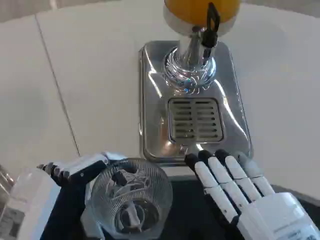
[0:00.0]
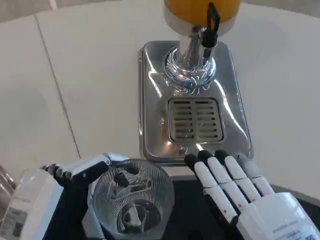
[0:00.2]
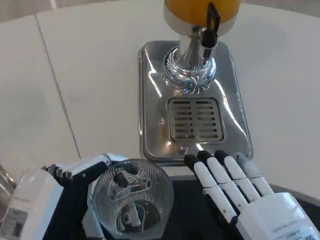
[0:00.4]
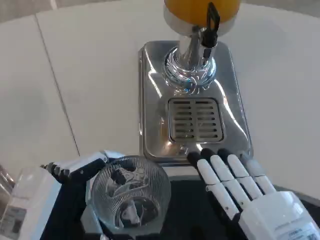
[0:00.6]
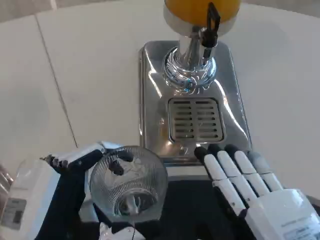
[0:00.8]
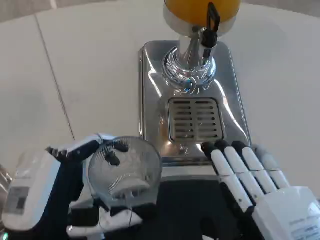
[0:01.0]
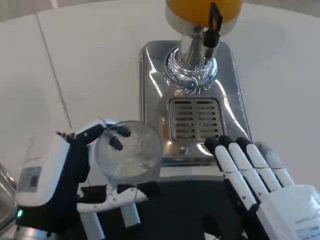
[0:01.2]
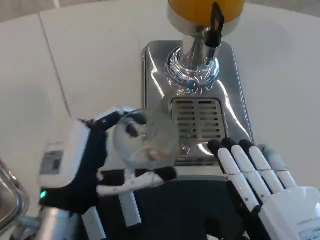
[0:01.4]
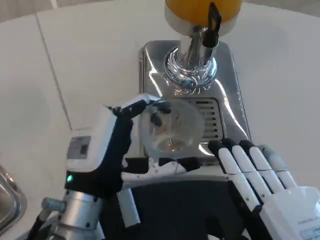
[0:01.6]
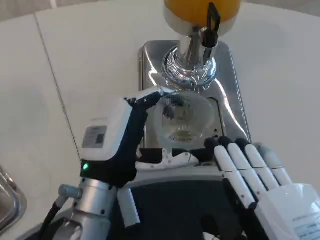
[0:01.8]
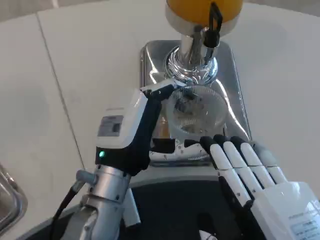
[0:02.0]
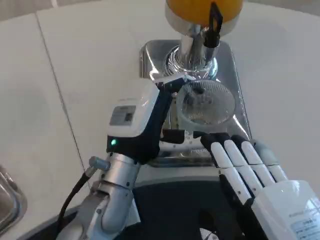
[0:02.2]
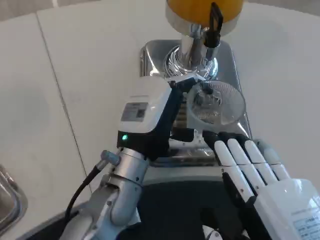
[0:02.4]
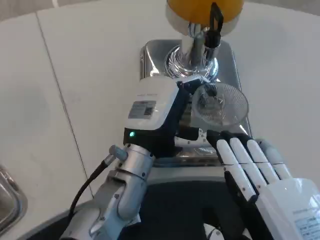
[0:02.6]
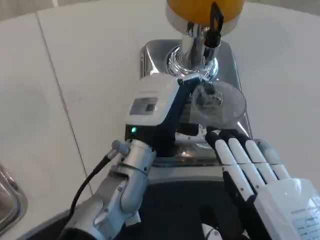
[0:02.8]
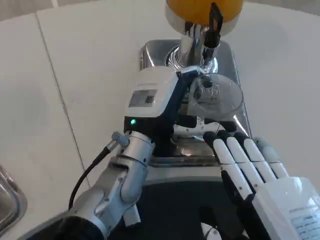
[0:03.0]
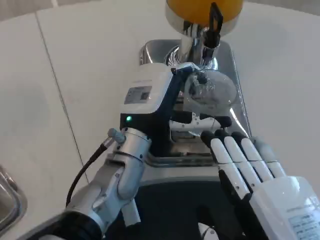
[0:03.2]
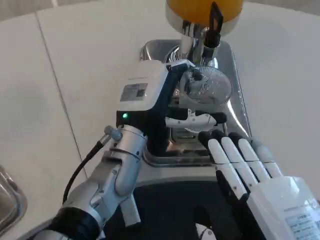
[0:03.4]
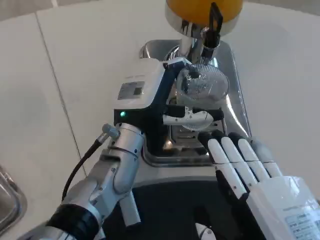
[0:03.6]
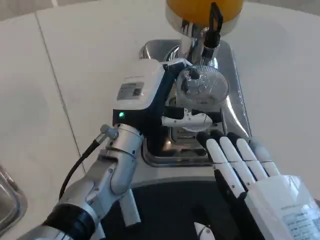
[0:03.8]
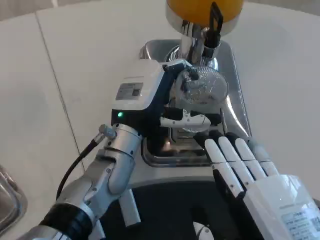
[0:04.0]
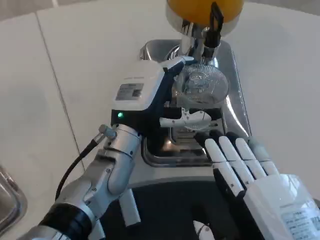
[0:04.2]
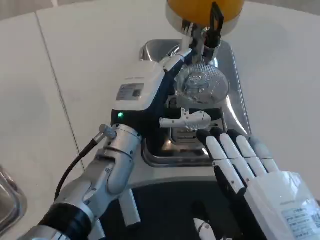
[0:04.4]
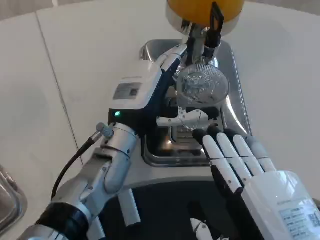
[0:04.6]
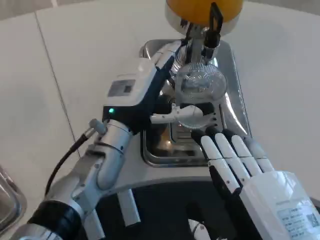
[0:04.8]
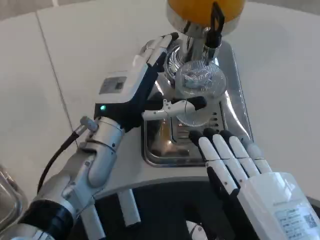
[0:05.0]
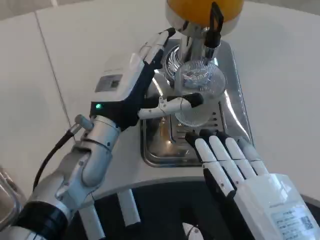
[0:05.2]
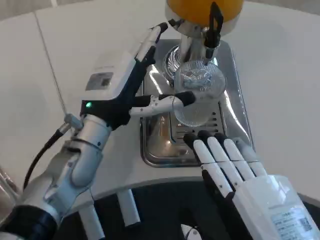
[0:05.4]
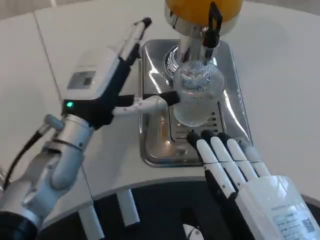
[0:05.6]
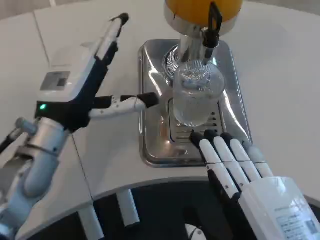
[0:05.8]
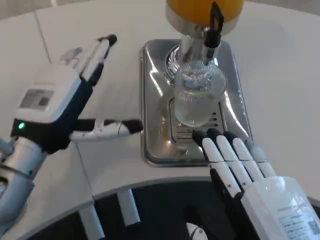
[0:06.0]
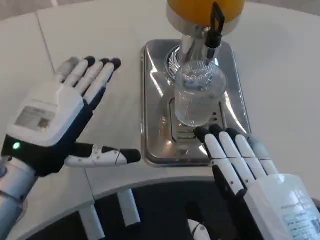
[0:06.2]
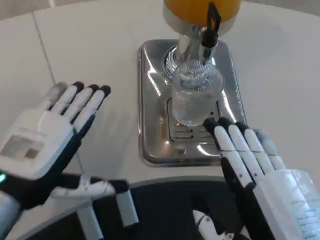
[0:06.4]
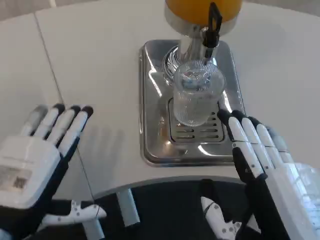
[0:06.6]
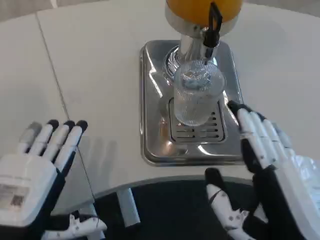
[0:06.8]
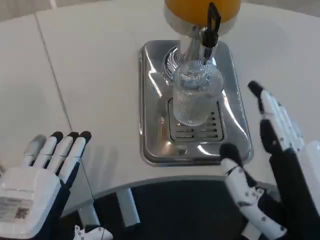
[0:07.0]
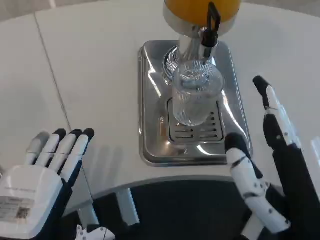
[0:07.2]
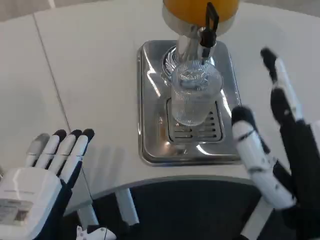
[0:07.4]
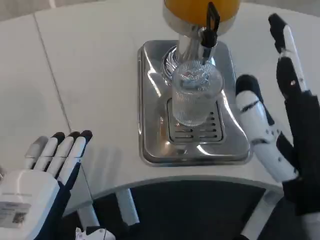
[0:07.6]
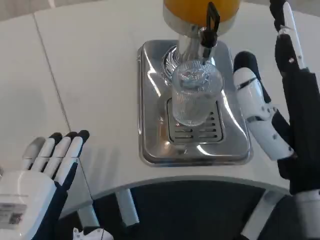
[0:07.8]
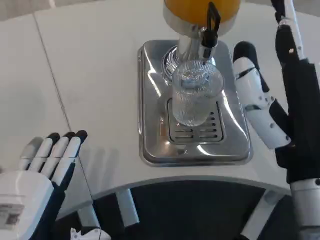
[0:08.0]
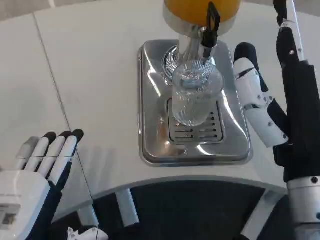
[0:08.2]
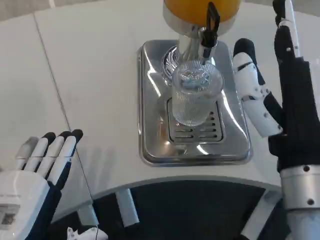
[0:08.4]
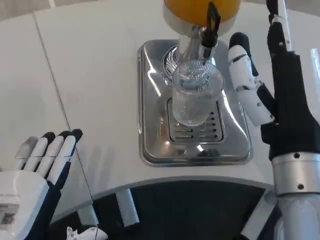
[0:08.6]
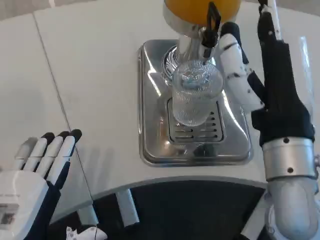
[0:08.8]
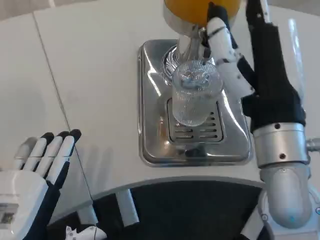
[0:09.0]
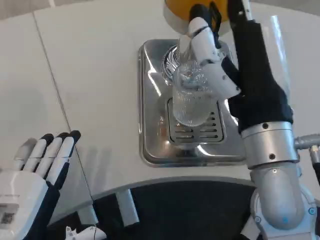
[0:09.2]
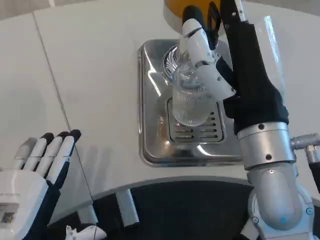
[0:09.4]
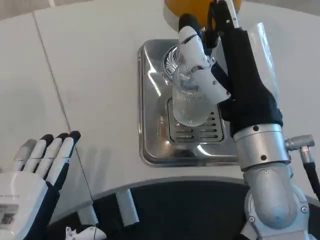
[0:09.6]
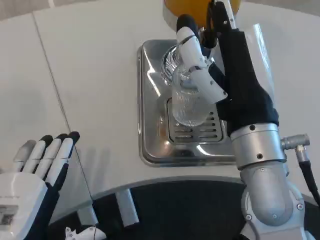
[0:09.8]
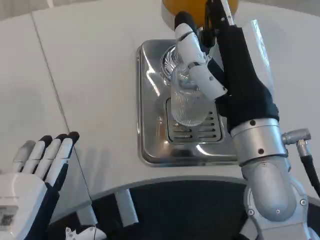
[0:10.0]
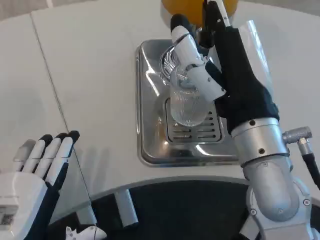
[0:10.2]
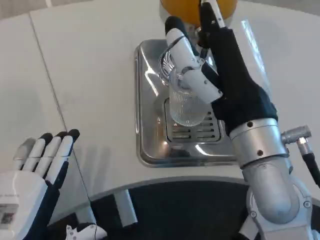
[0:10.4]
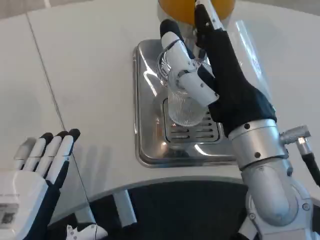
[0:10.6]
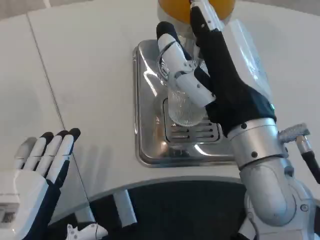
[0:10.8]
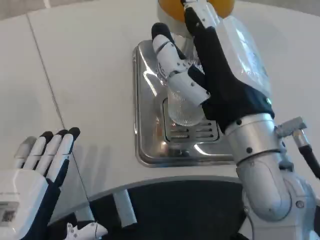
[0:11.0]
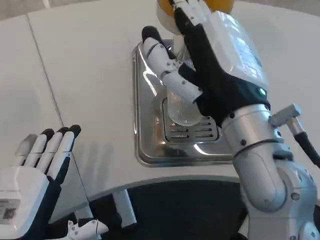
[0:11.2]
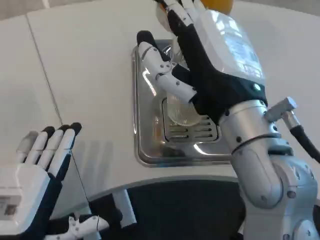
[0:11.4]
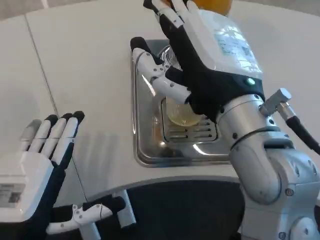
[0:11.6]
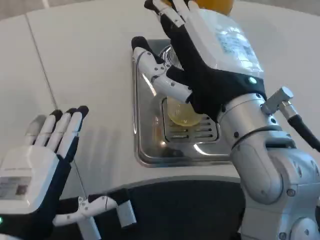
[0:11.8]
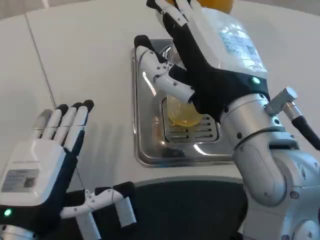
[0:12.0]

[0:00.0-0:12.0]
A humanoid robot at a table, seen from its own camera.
Task of the whole recording: Grasp the cup under the faucet to collect the drink, then remove the cup.
0:00.0 to 0:01.6: The left hand shifts about 10 cm forward and to the right.
0:01.6 to 0:03.0: The left hand travels forward and to the right by roughly 10 cm.
0:04.4 to 0:06.0: The left hand goes some 15 cm to the left and backward.
0:06.0 to 0:07.6: The right hand moves upward, roughly 5 cm. Meanwhile the left hand goes some 15 cm backward and downward.
0:07.6 to 0:09.0: The right hand shifts approximately 10 cm forward.
0:10.4 to 0:12.0: The left hand shifts by approximately 5 cm.

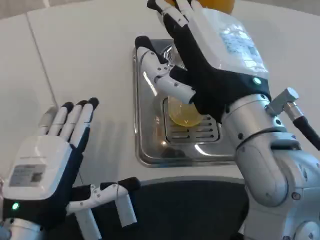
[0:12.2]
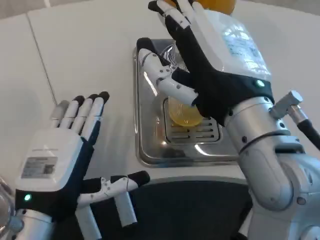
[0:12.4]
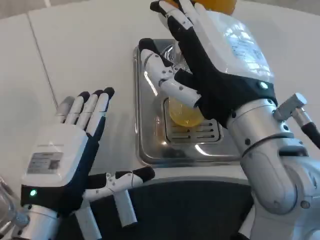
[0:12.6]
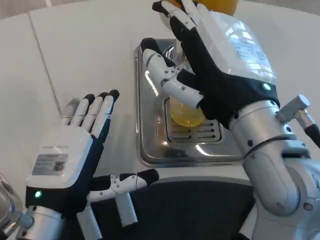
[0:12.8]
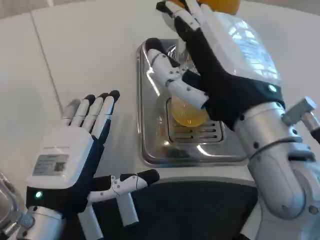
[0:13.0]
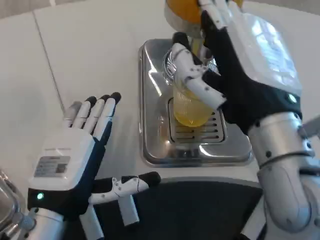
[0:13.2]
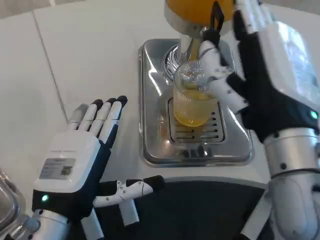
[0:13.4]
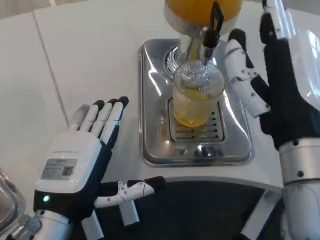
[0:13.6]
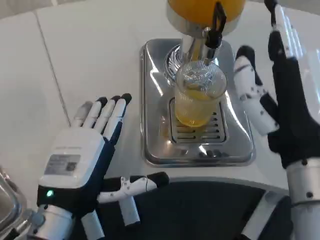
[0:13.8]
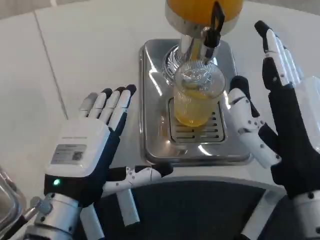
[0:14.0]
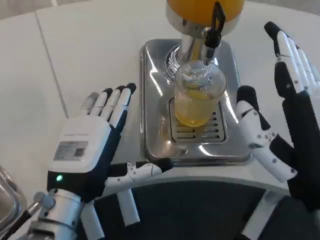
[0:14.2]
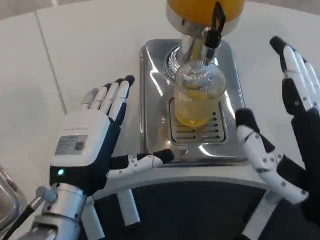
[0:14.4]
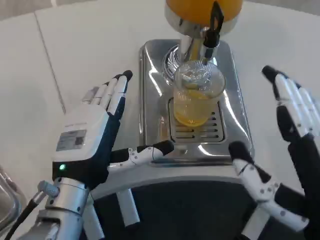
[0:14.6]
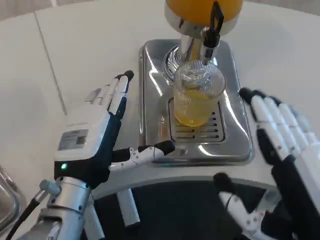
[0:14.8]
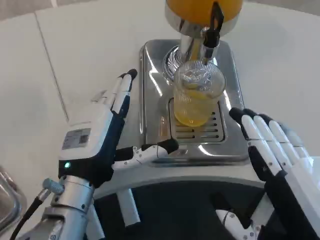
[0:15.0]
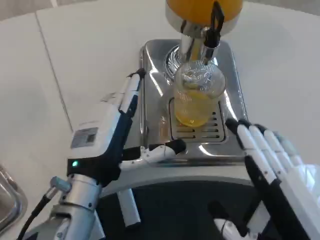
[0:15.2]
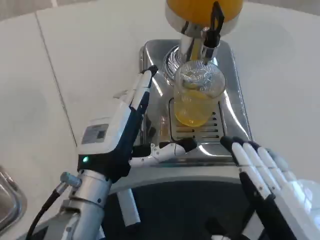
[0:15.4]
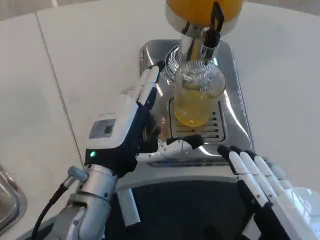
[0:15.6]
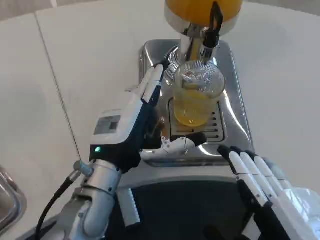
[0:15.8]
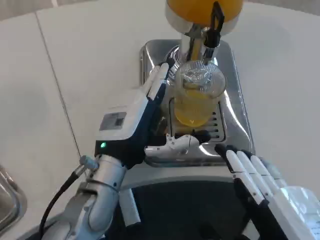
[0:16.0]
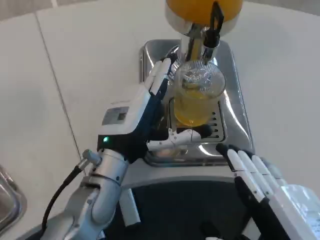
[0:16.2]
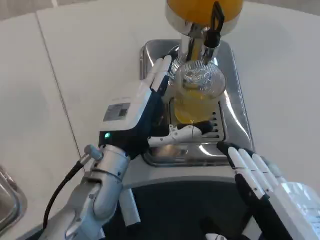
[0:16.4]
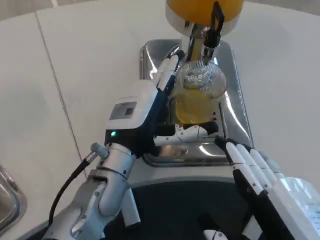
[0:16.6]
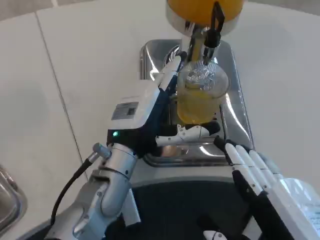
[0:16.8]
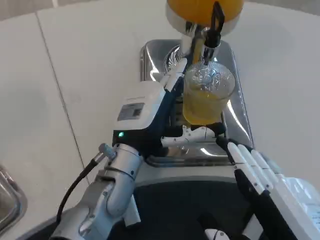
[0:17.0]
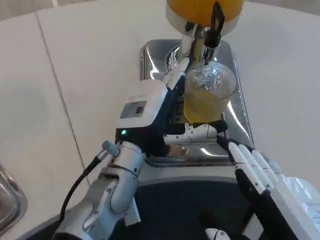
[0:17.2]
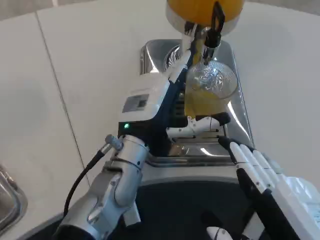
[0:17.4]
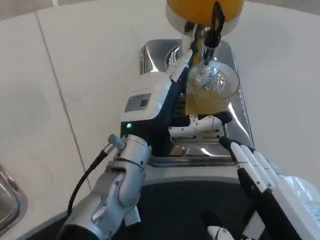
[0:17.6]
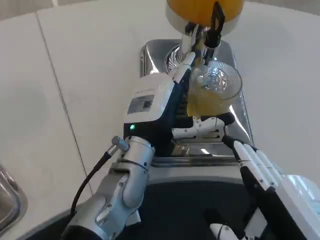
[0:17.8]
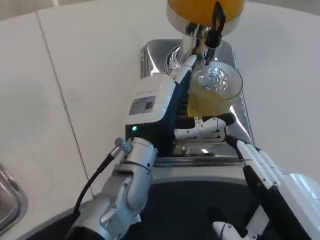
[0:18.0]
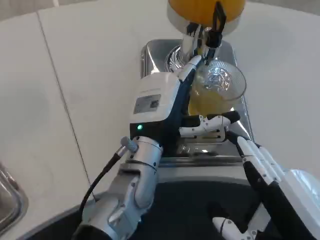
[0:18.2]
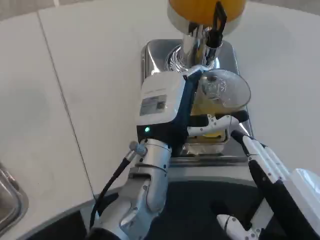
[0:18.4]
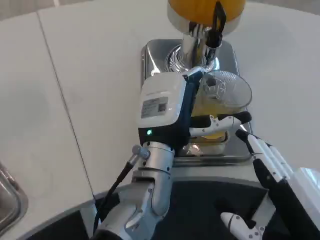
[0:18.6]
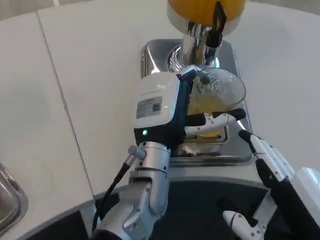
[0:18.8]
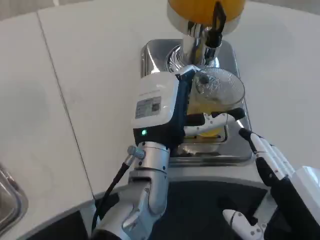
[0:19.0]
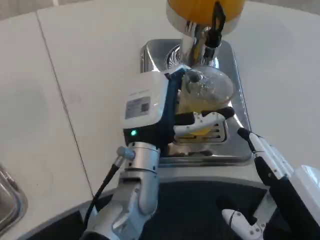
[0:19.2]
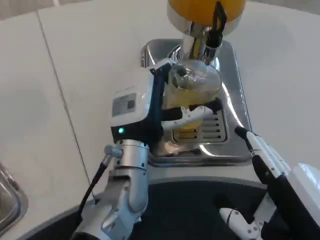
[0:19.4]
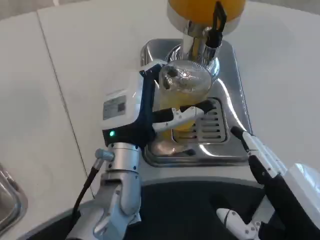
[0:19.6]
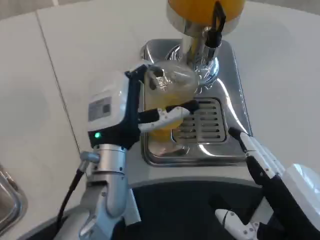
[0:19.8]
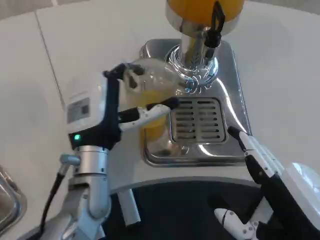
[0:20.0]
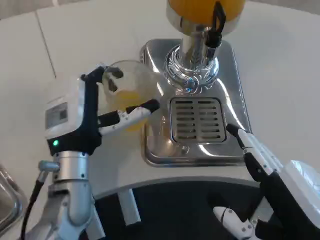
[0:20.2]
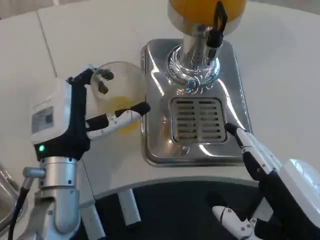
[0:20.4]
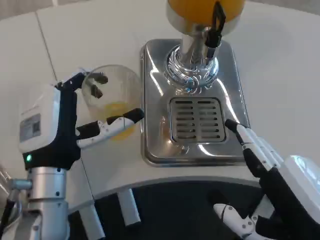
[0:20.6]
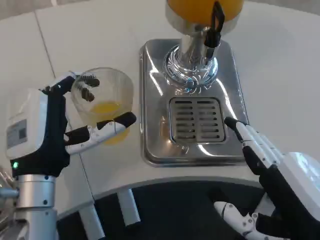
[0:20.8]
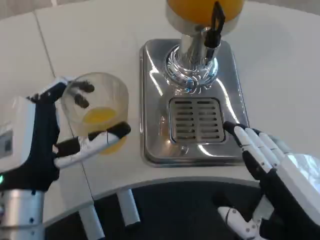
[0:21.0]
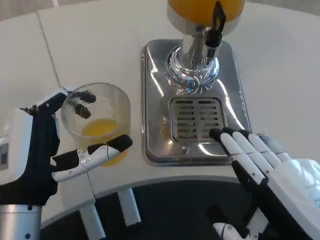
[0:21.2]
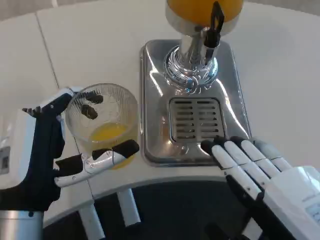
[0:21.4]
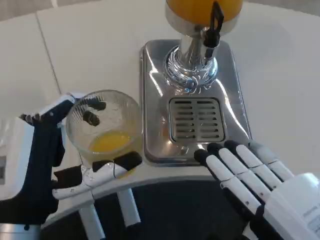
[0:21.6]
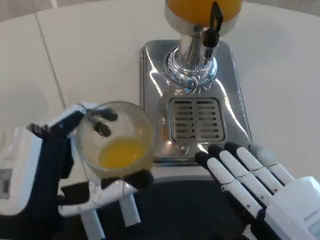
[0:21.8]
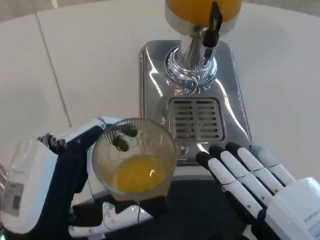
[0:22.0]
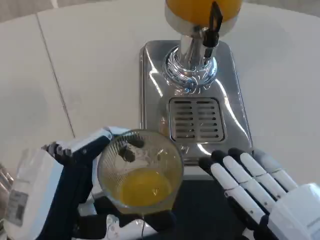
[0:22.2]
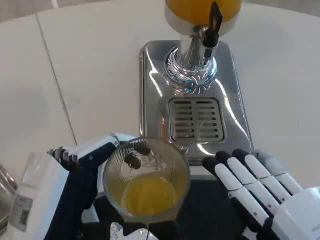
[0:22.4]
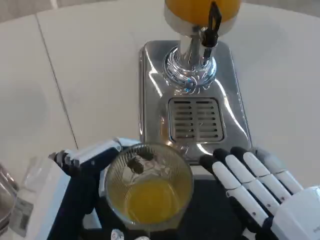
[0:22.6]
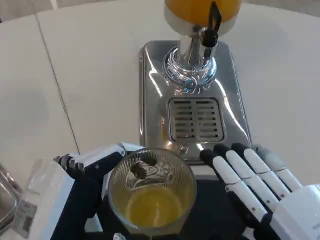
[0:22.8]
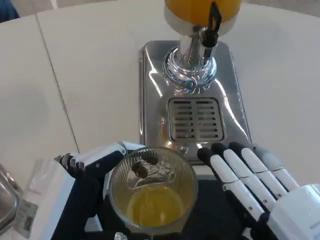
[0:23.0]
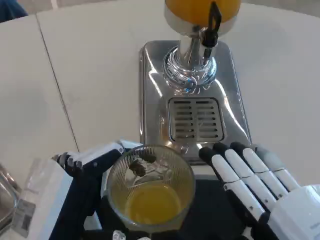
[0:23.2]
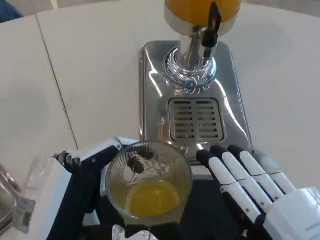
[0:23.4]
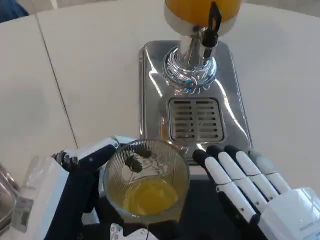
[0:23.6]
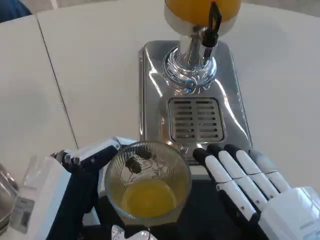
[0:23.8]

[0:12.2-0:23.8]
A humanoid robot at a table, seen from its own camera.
Task of the whole recording: Grasp the cup under the faucet to collect the drink, then remove the cup.
0:12.2 to 0:13.6: The right hand ends up approximately 5 cm from where it was.
0:13.6 to 0:15.0: The right hand travels backward and downward by about 10 cm. Meanwhile the left hand moves forward, approximately 5 cm.
0:15.0 to 0:16.6: The left hand goes roughly 5 cm forward.
0:18.0 to 0:19.4: There are only small adjustments of the hands.
0:19.4 to 0:21.0: The left hand travels to the left and backward by about 15 cm.
0:21.0 to 0:22.4: The left hand is displaced backward by approximately 10 cm.
0:22.4 to 0:23.8: The hands stay close to where they were, moving slightly.
